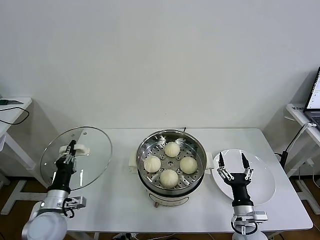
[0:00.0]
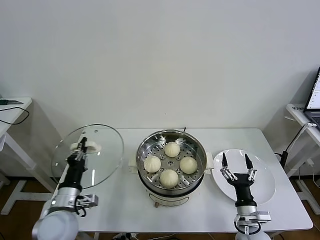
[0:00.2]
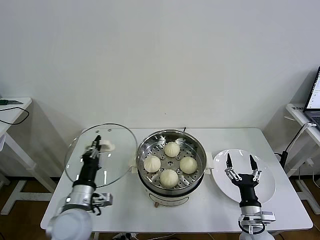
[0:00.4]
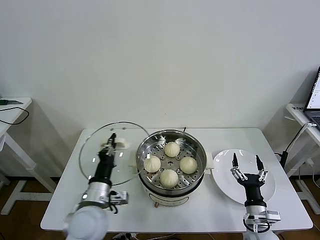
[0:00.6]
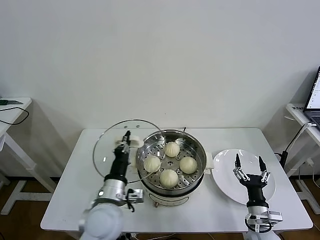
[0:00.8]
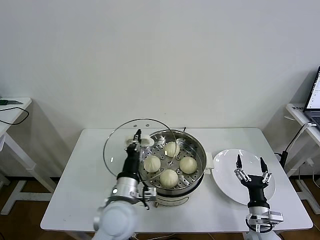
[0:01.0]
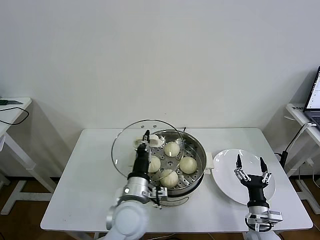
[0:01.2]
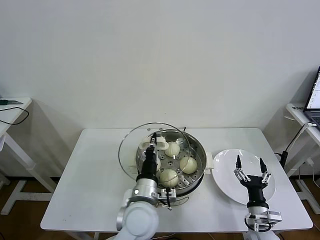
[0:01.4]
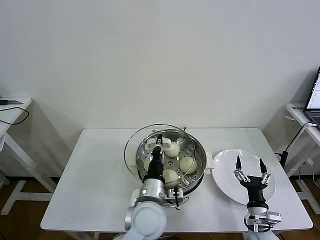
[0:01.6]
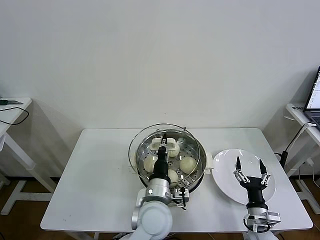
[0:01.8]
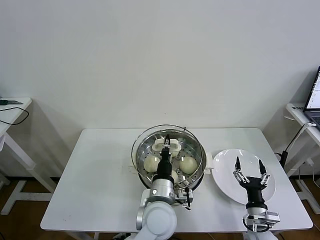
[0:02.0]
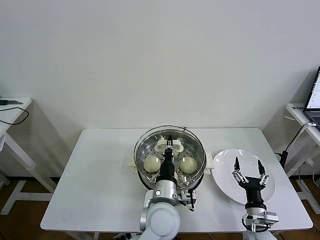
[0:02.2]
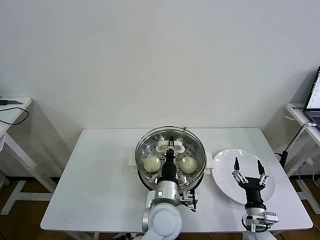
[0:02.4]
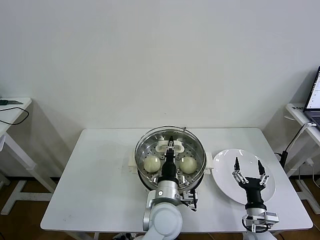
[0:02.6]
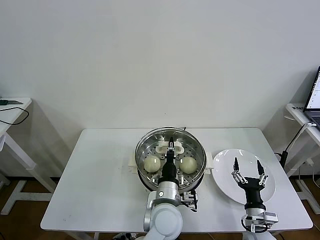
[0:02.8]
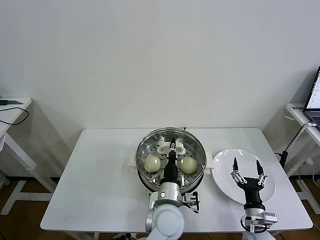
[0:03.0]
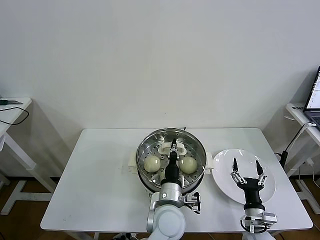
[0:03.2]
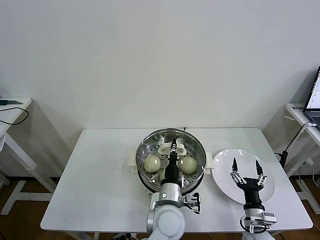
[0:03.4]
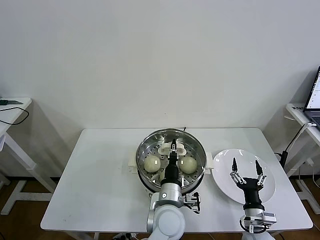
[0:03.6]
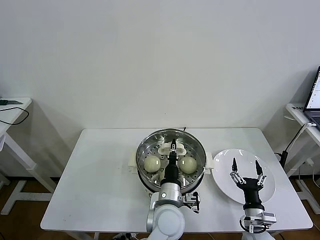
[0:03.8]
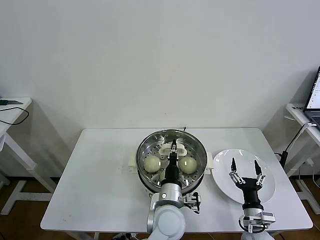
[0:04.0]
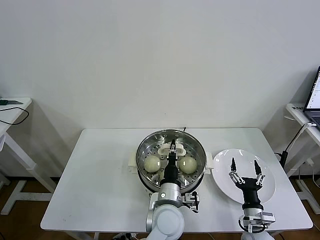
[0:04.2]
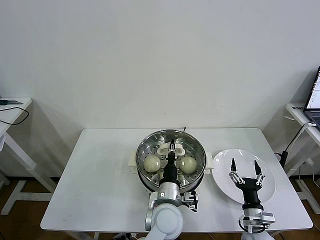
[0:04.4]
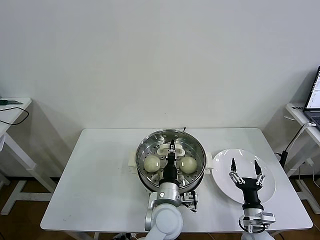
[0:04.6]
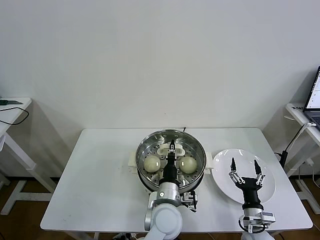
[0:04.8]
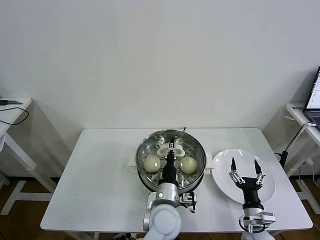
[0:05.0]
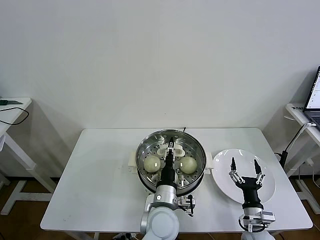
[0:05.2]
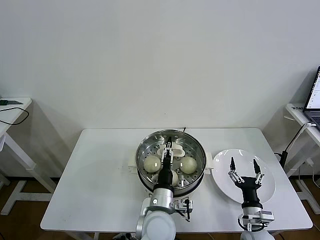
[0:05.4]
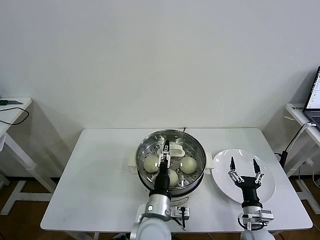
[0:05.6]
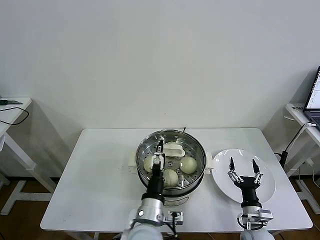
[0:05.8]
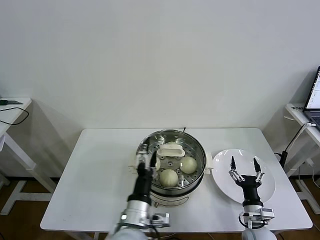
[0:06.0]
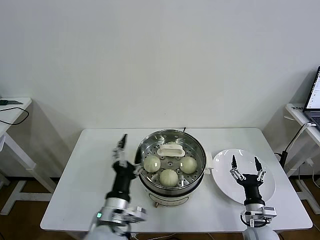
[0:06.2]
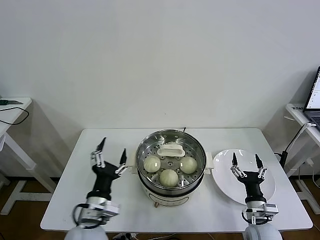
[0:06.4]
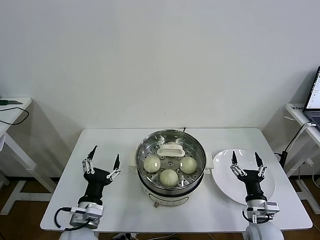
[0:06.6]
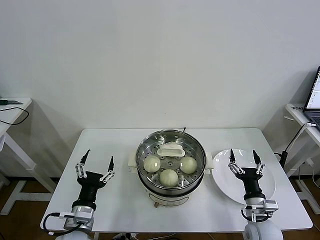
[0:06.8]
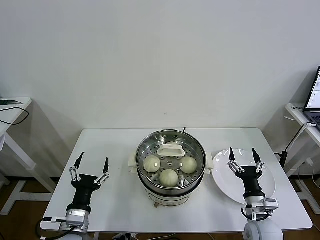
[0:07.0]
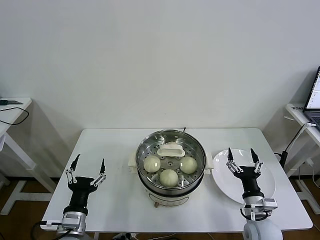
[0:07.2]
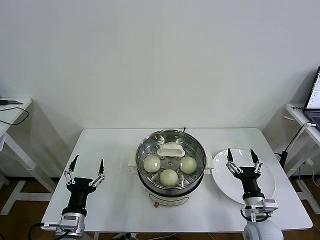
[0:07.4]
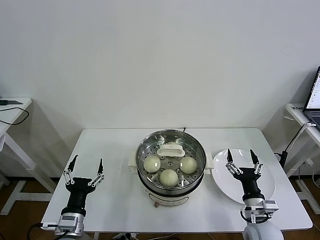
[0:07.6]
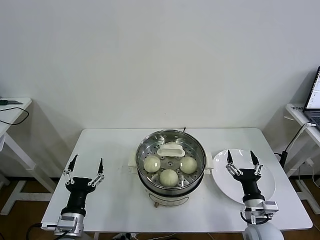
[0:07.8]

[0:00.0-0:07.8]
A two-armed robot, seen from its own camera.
Task of the whole recording: take steamed baozi put them in steamer then cover it.
Step, 0.0 to 5.6 s: Place the pot lid on the steamer with left gripper.
0.0 to 1.6 s: The left gripper moves to the right, about 30 cm.
1.6 to 3.2 s: The left gripper is displaced to the right by about 5 cm.
3.2 to 4.6 s: Neither gripper changes place.
4.6 to 6.2 s: The left gripper travels to the left, backward and upward by about 15 cm, and opens.
6.2 to 7.8 s: The right gripper shifts approximately 5 cm upward, while the left gripper is displaced to the left and downward by some 15 cm.

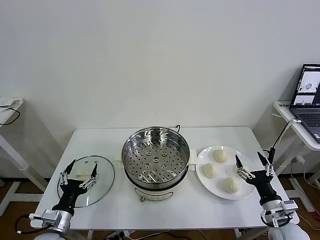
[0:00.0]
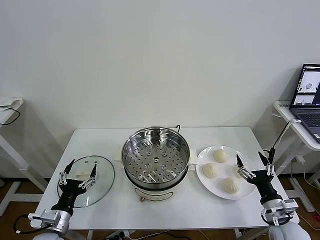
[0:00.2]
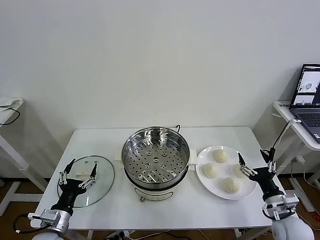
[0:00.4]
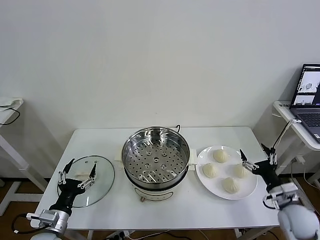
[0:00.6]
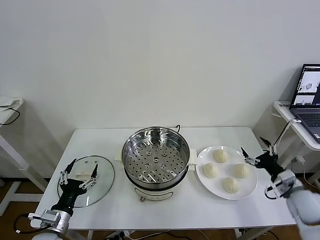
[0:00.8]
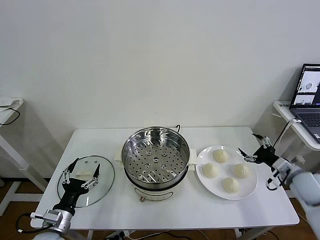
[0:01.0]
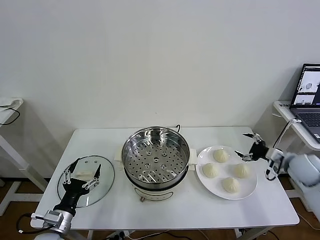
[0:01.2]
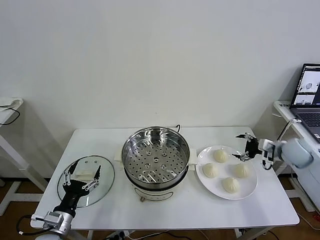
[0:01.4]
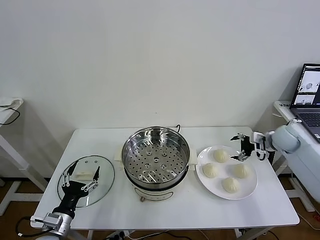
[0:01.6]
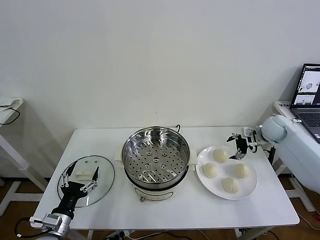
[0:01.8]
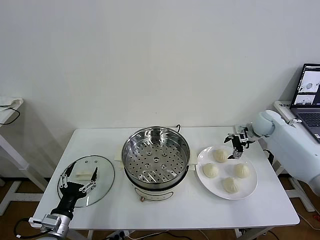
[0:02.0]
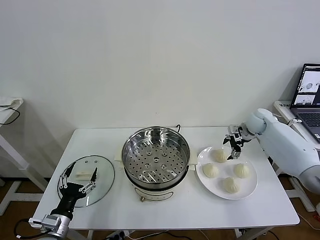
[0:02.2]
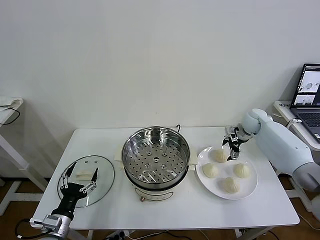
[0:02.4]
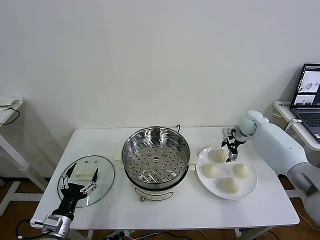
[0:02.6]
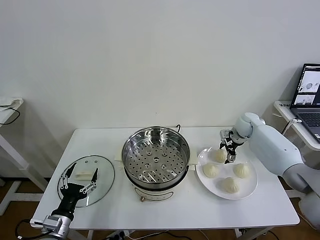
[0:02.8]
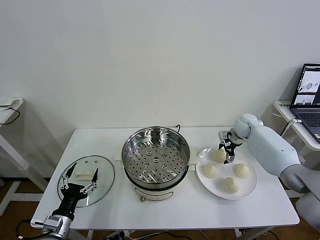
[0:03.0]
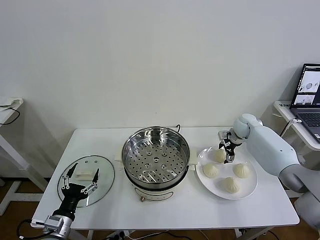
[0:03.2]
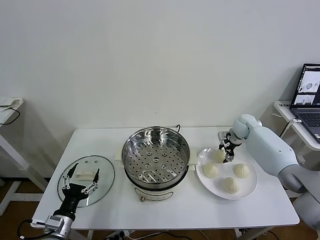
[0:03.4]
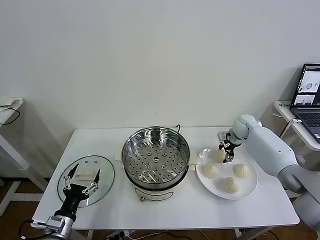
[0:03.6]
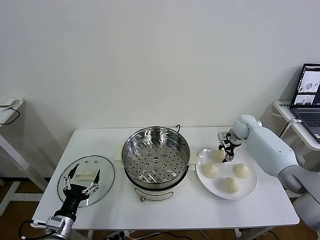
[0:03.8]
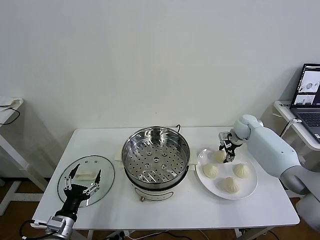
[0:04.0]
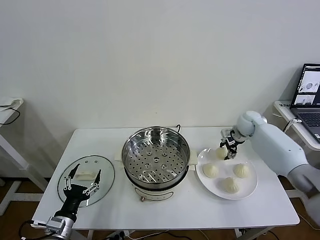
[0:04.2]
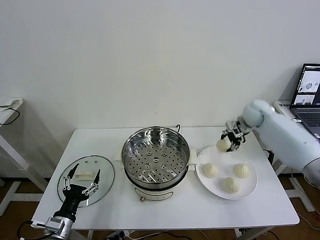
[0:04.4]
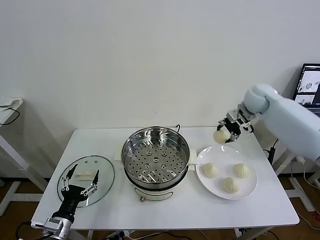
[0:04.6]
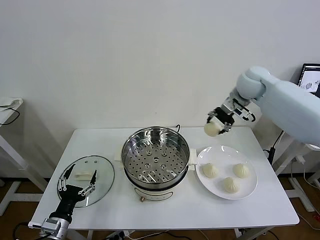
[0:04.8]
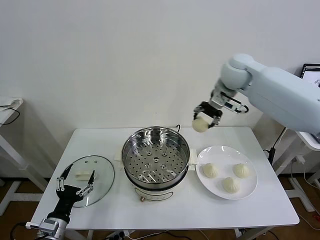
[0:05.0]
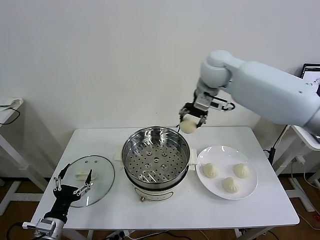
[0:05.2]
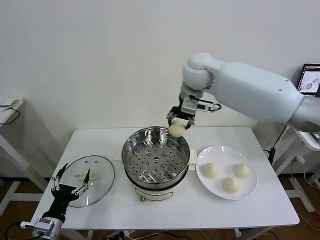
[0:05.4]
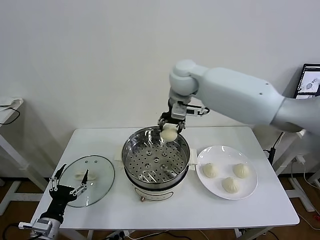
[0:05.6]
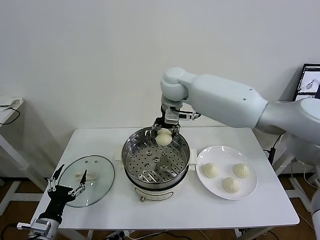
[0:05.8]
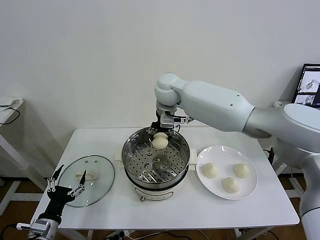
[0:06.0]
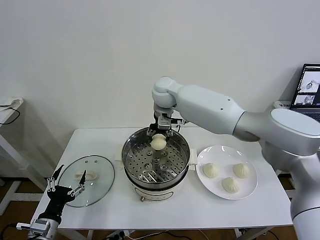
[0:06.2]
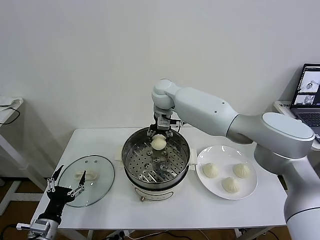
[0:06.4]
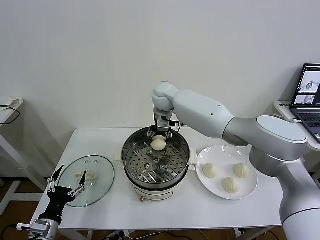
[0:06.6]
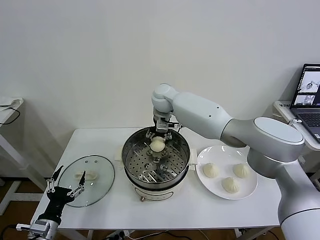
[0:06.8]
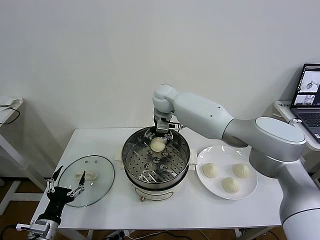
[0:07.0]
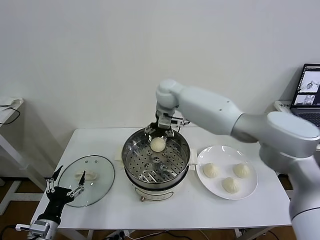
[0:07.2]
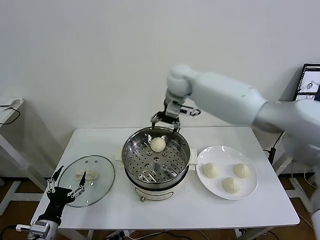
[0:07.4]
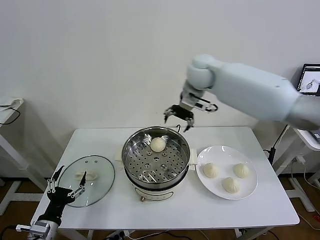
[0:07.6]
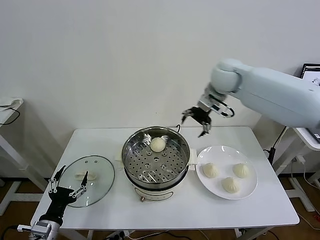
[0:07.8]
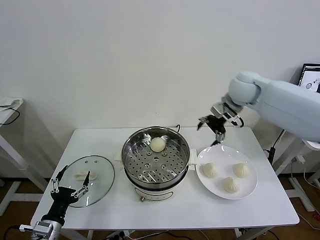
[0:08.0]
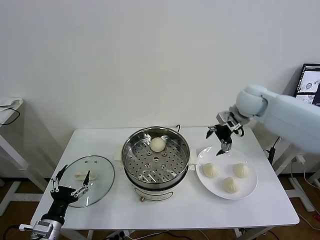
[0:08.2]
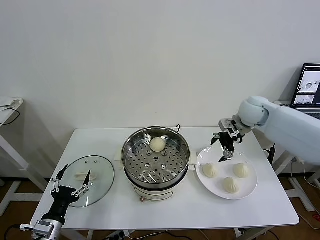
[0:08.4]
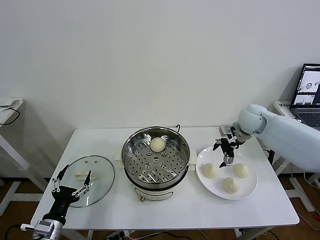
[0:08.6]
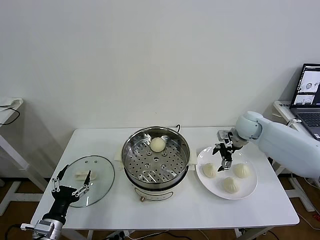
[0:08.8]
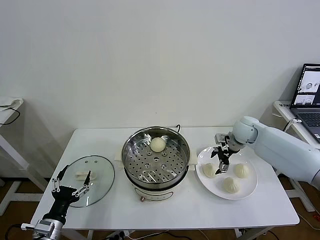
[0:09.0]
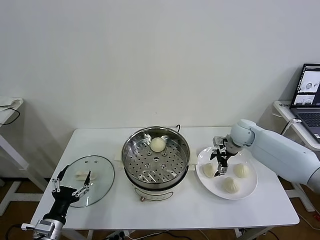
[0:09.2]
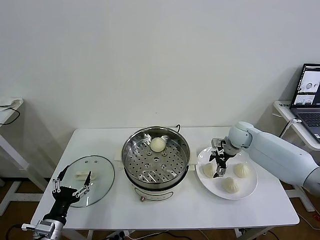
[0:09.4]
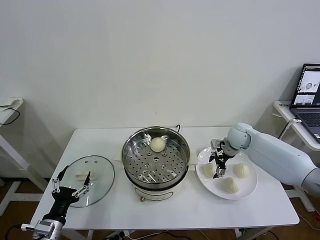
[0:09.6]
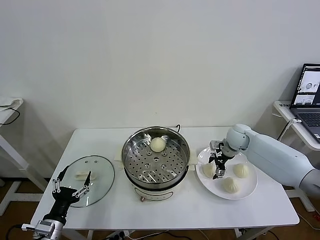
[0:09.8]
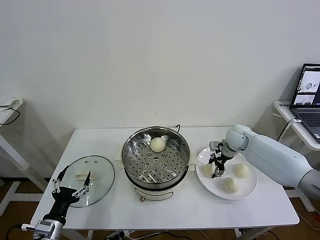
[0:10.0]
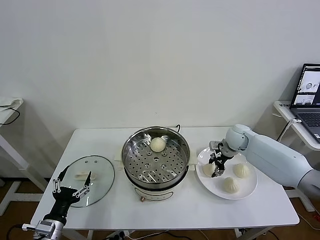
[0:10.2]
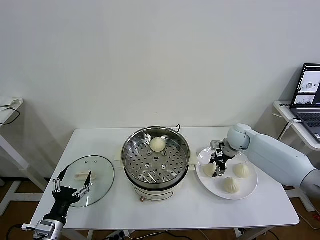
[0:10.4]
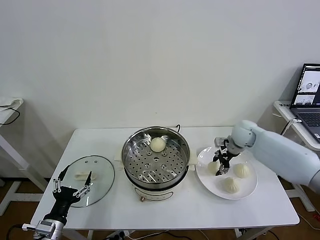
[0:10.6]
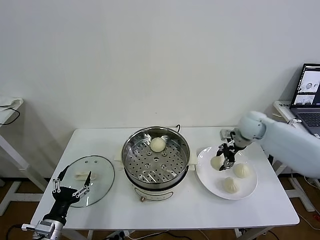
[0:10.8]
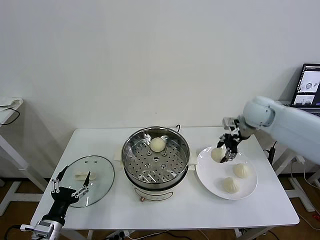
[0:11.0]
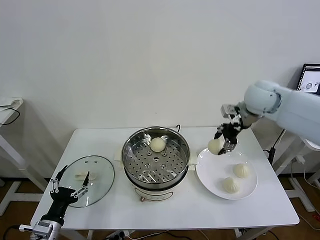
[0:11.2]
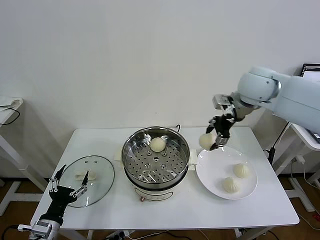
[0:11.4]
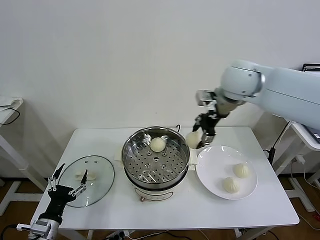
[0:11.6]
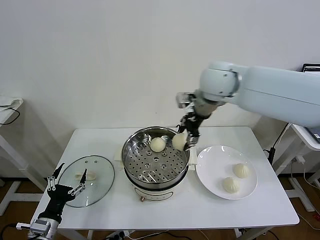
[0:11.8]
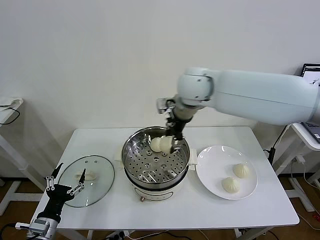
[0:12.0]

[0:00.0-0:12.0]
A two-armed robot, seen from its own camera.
Task of the whole recording: take steamed baozi put them in steamer then cover it.
Step, 0.0 to 3.4 s: Grasp the baozi in the plate with right gripper.
Step, 3.6 to 7.0 s: Place the baozi on the steamer with right gripper.
Step, 7.2 to 10.2 s: Grasp the baozi in the plate with right gripper.
1.6 to 3.0 s: The right gripper shifts about 10 cm to the left and forward.
3.0 to 4.4 s: The right gripper shifts some 10 cm upward, and closes.
4.4 to 6.0 s: The right gripper travels to the left by about 35 cm.
6.0 to 7.6 s: The right gripper shifts about 15 cm to the right and upward, and opens.
7.6 to 9.0 s: The right gripper travels downward and to the right by roughly 25 cm.
9.0 to 10.4 s: The right gripper closes.
10.4 to 12.0 s: The right gripper travels to the left and upward by about 35 cm.

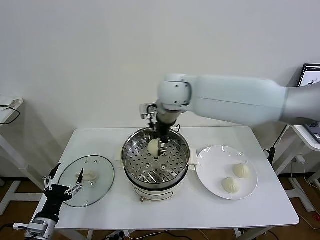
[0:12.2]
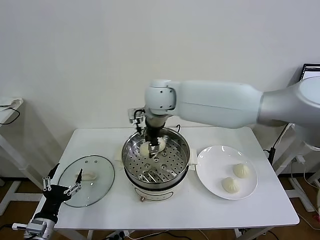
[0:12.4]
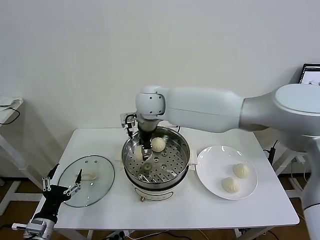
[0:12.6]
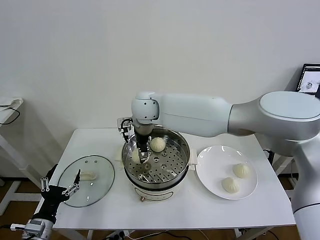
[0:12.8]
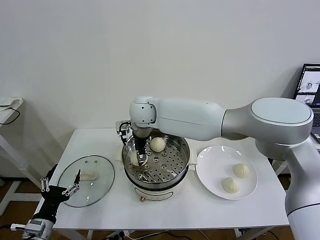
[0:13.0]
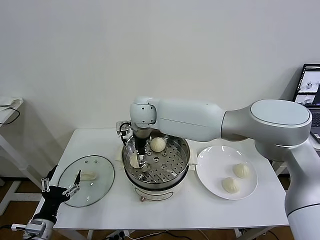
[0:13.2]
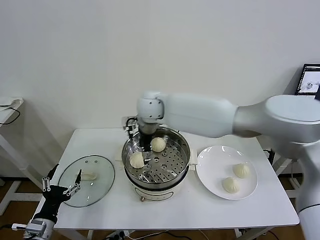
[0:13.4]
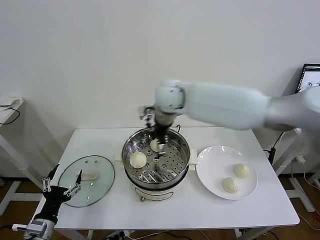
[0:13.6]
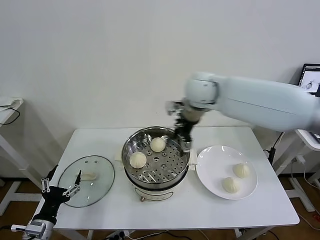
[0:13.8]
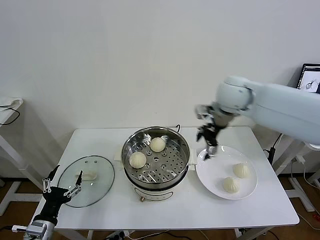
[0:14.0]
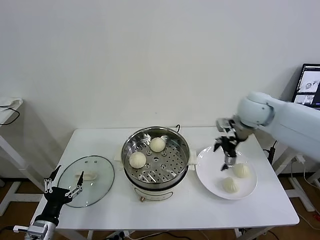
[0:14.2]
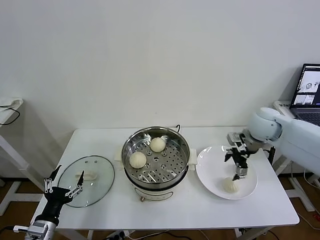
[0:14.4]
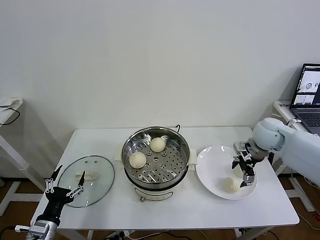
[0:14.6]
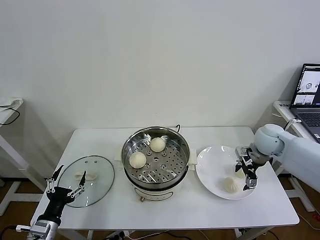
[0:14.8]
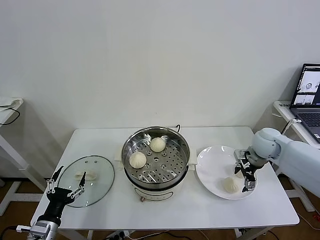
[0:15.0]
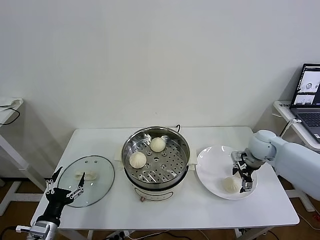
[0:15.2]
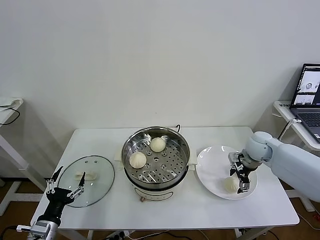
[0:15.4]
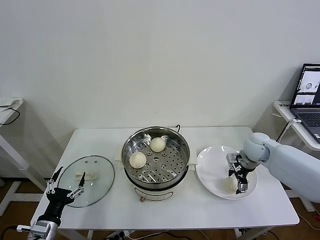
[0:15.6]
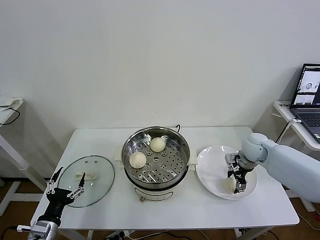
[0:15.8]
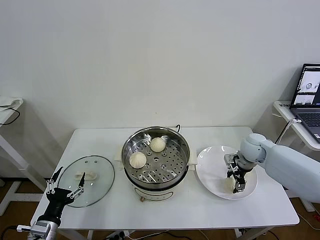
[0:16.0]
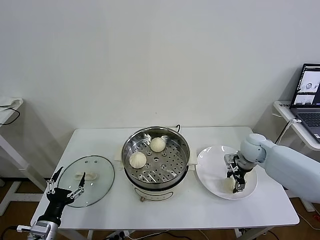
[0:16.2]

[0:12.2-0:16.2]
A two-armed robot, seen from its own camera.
Task of the whole recording: take steamed baozi put them in steamer then cover it.
12.2 to 13.6 s: The right gripper opens.
13.6 to 14.8 s: The right gripper shifts about 35 cm to the right and downward.
14.8 to 16.2 s: The right gripper travels downward by approximately 5 cm, and closes.
